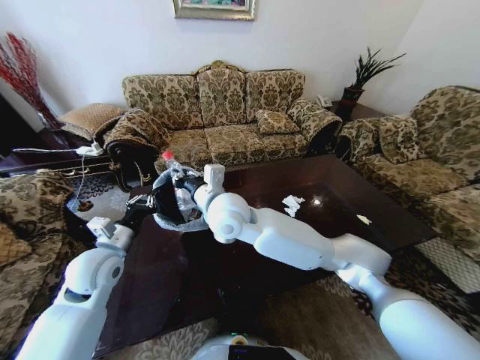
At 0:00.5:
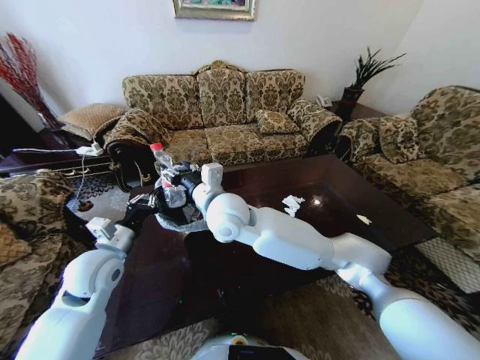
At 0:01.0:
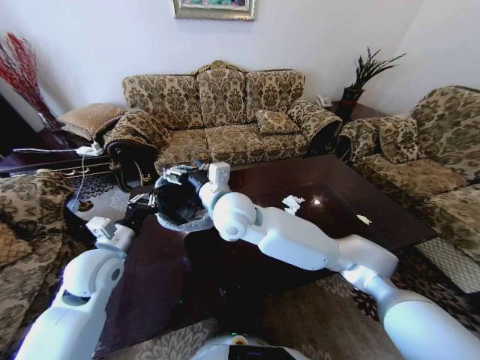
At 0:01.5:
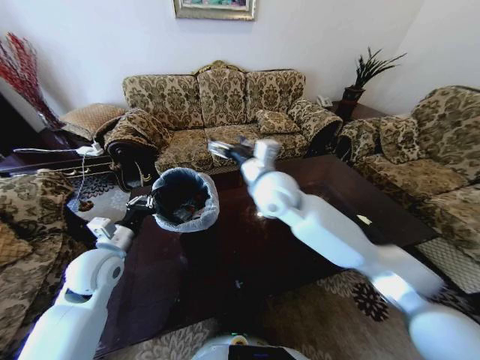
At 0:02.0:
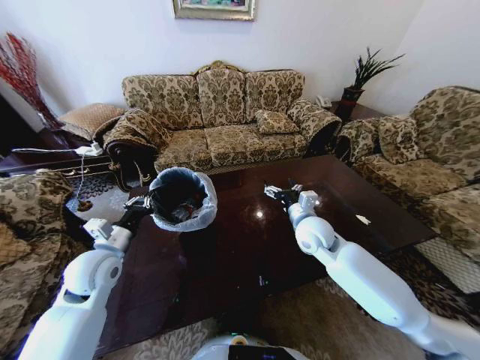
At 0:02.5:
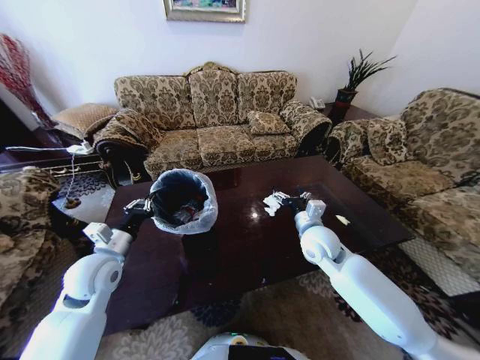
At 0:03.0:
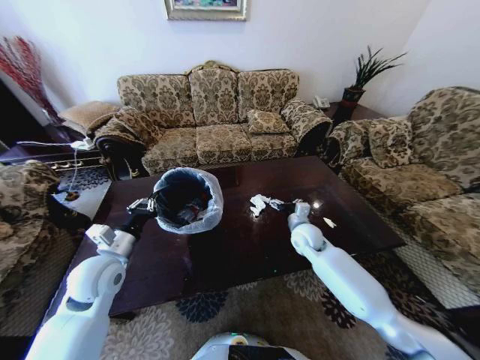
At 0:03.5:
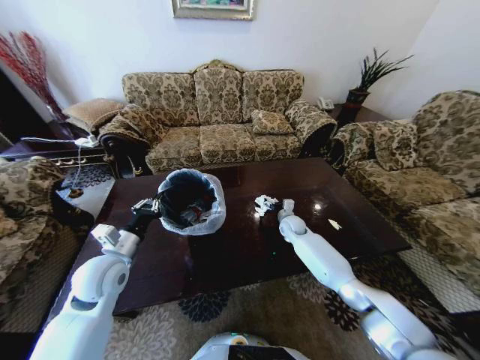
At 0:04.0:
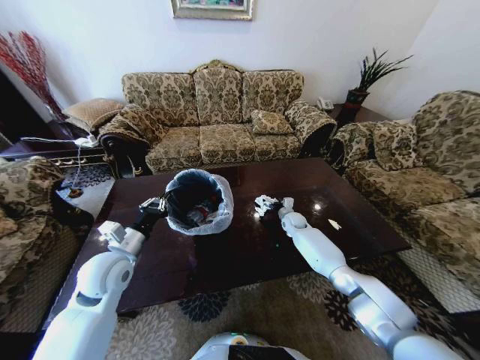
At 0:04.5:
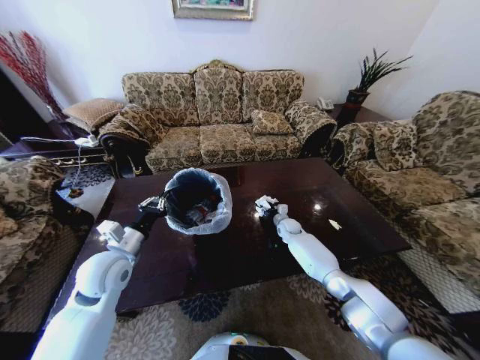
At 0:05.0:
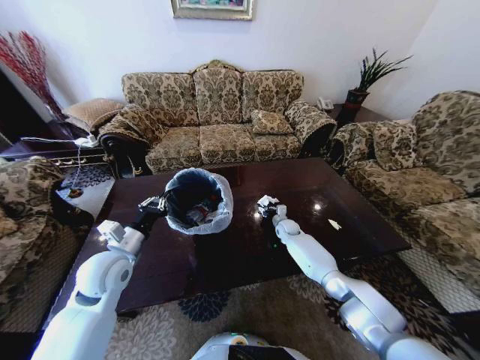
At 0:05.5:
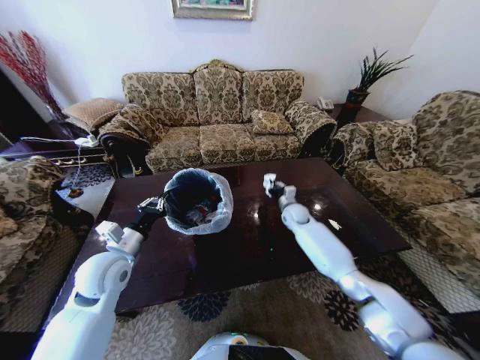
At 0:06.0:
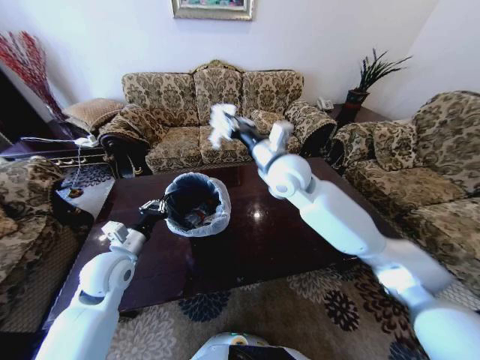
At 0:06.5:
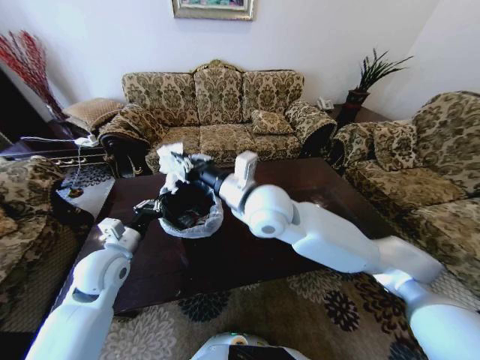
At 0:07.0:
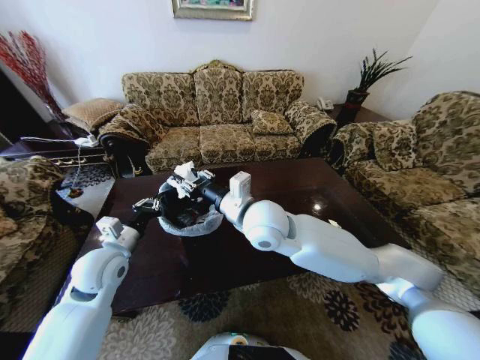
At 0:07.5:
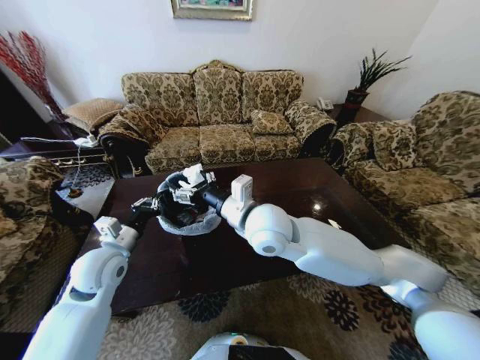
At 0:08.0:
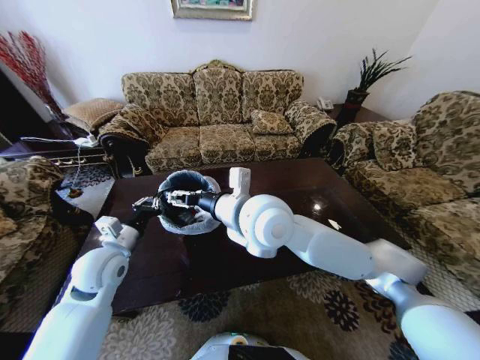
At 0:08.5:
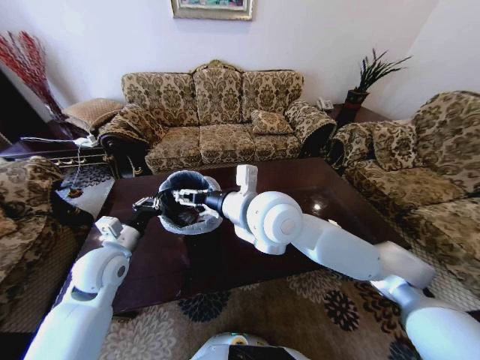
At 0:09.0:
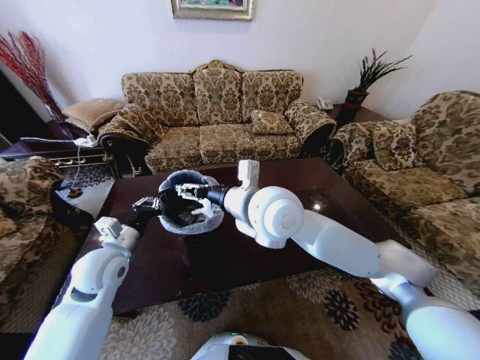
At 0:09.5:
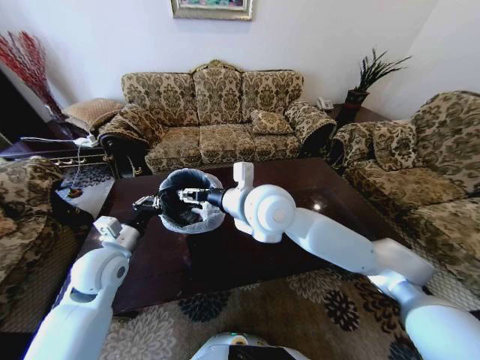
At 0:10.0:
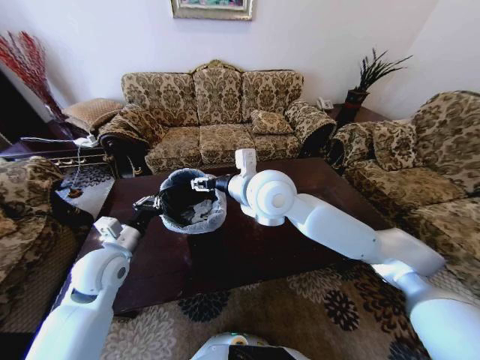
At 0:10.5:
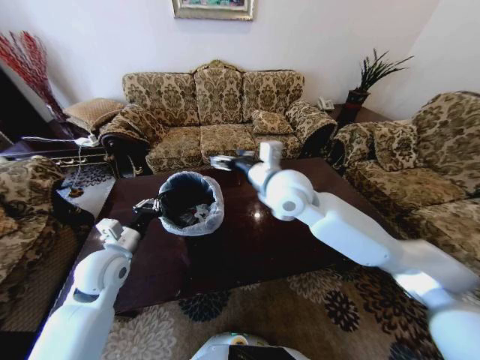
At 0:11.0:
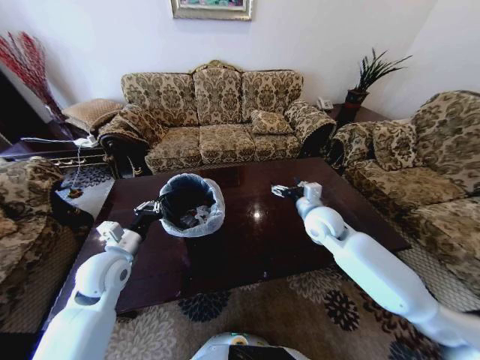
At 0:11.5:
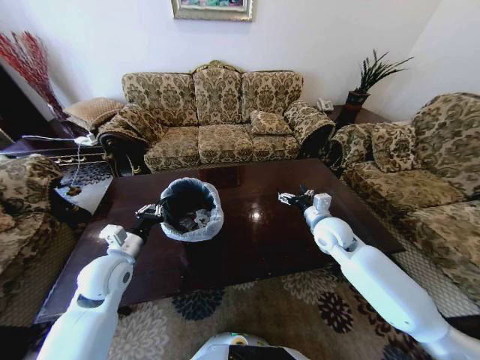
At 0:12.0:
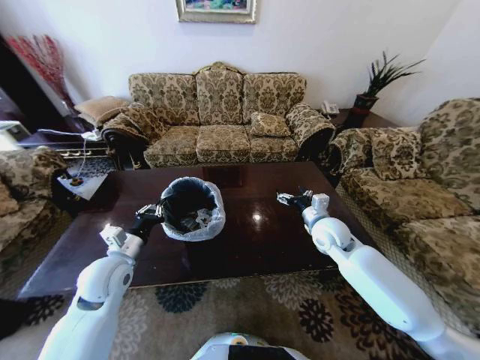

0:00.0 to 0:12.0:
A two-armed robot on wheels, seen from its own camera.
Task of the whole recording: Move to the front of the table and place the trash on the table into the trash bin.
0:00.0 to 0:02.0: The right gripper heads to the right and downward, covering roughly 25 cm, and opens up.
0:02.0 to 0:04.0: The right gripper goes about 25 cm downward and forward.
0:04.0 to 0:06.0: The right gripper goes about 40 cm upward and backward, and closes up.
0:06.0 to 0:08.0: The right gripper heads backward and to the left, covering some 15 cm, and opens its fingers.
0:08.0 to 0:10.0: The right gripper shifts some 5 cm forward.
0:10.0 to 0:12.0: The right gripper shifts about 30 cm to the right and downward.

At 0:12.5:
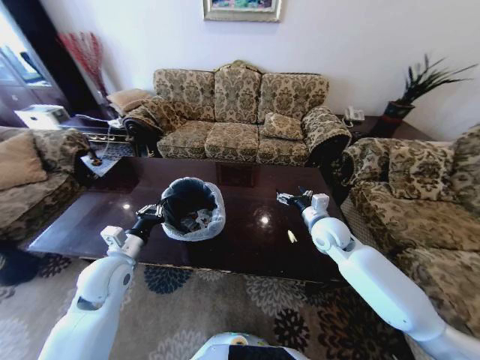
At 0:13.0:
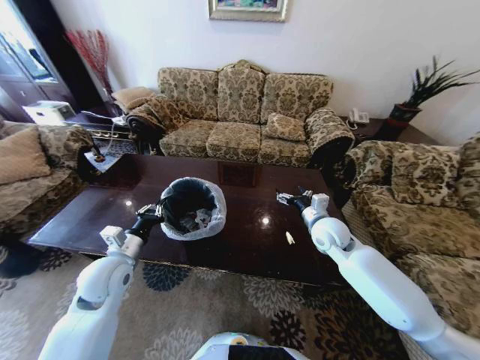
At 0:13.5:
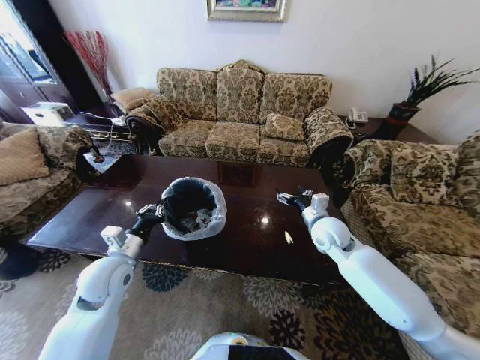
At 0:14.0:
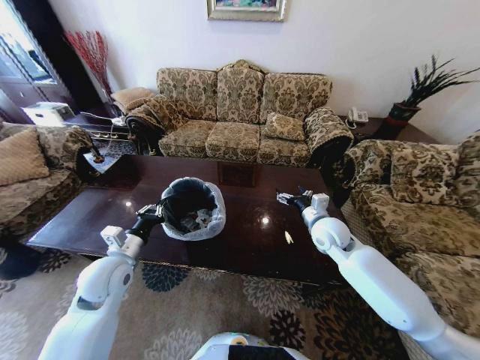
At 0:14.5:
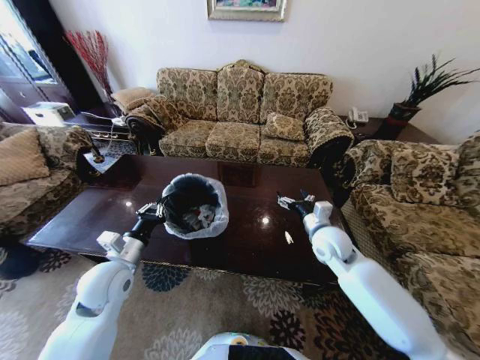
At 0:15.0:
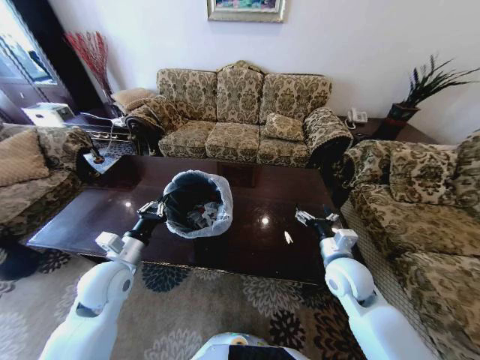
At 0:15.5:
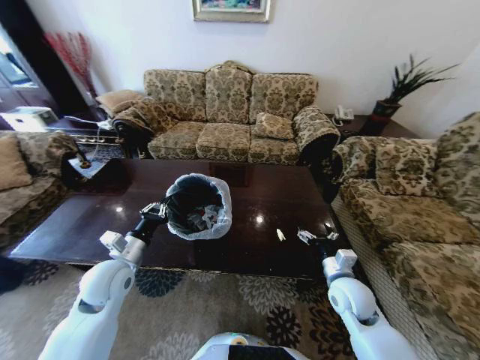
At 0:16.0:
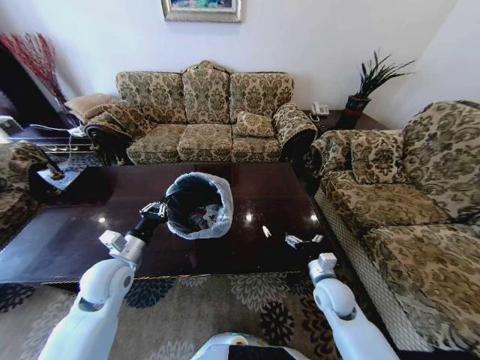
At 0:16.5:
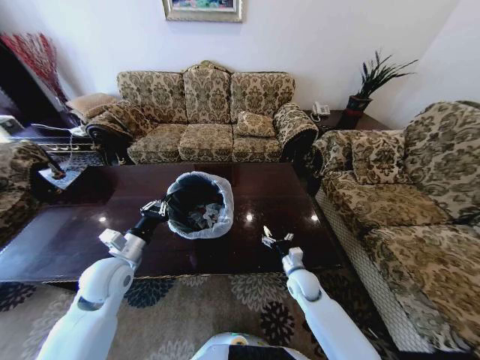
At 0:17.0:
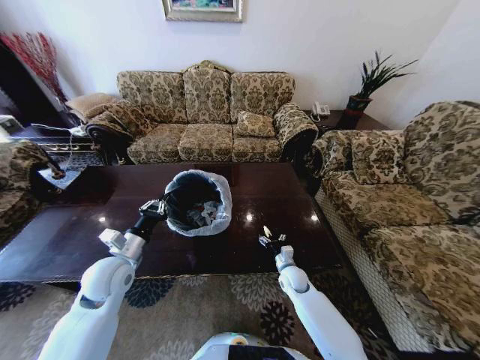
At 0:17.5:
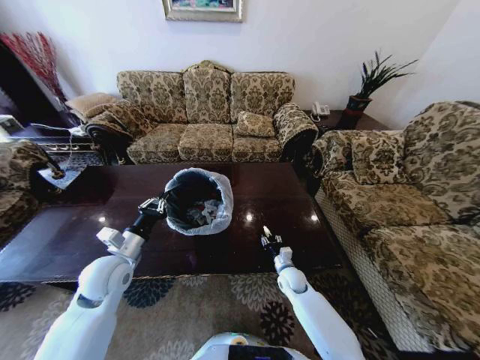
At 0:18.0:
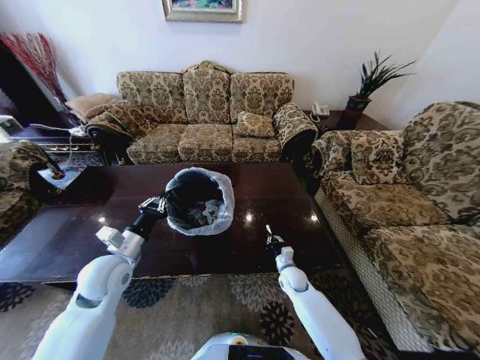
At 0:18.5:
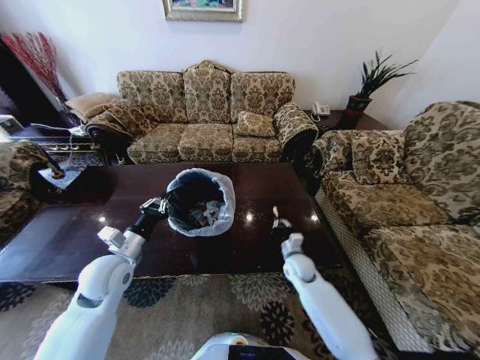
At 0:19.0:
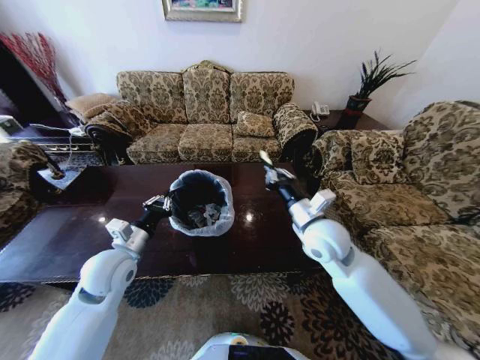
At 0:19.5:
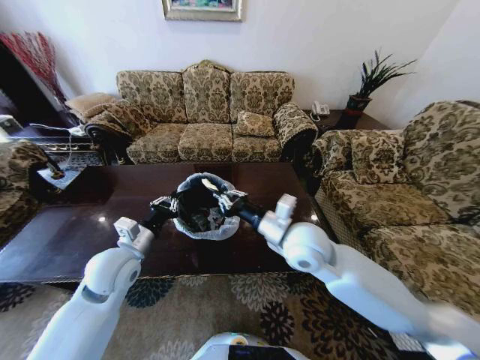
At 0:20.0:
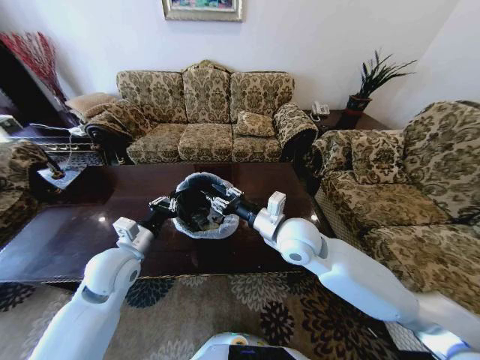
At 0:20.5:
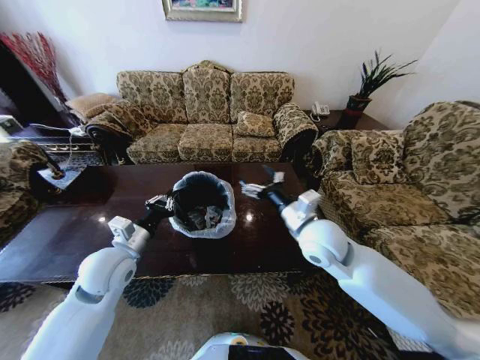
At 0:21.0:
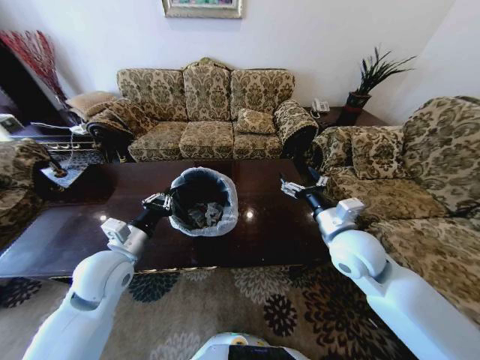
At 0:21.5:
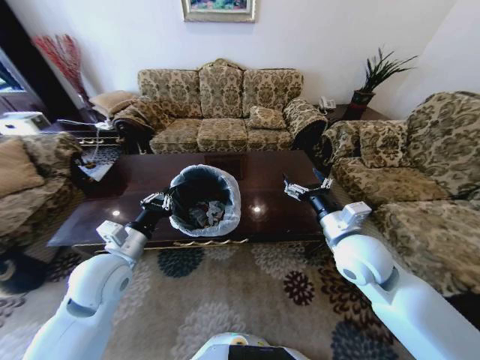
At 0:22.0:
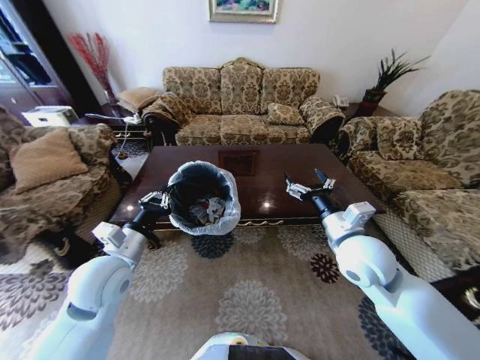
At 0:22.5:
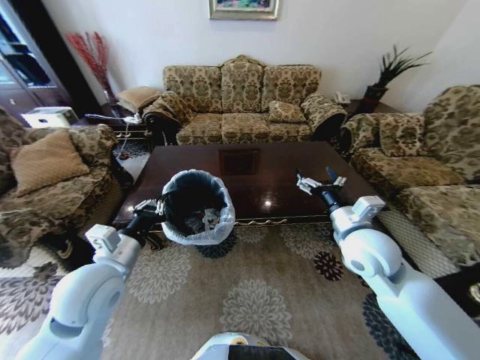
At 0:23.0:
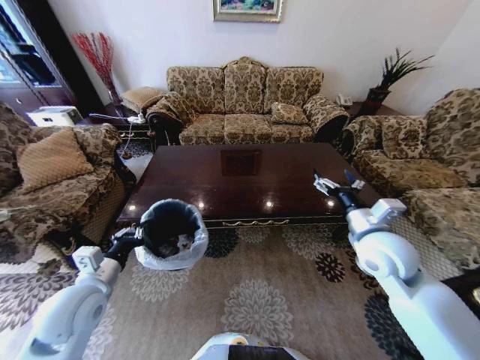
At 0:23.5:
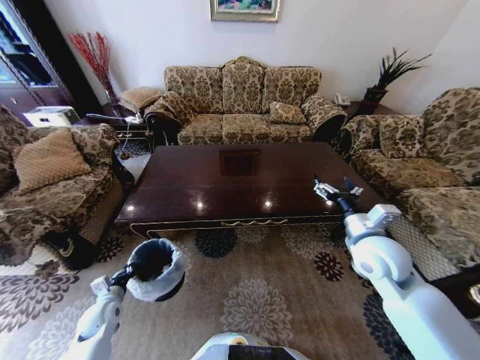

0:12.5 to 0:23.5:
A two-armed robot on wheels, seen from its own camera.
Task of the whole recording: Move to the front of the table and place the trash on the table into the trash bin.
0:14.5 to 0:16.0: The right gripper shifts roughly 15 cm downward and backward.
0:16.0 to 0:18.0: The right gripper travels downward, forward and to the left by some 15 cm, and closes its fingers.
0:18.0 to 0:20.0: The right gripper is displaced upward by some 35 cm, and opens its fingers.
0:20.0 to 0:21.5: The right gripper travels to the right by roughly 10 cm, and opens its fingers.
0:21.5 to 0:23.5: The right gripper is displaced to the right by some 5 cm. Meanwhile the left gripper travels downward and to the left by roughly 30 cm.

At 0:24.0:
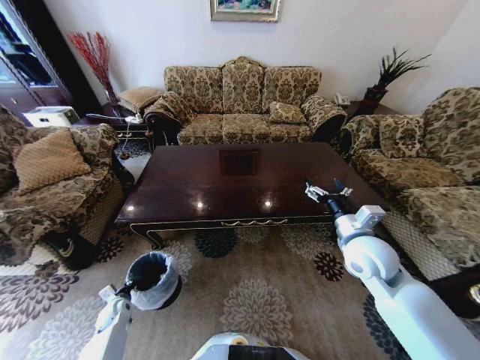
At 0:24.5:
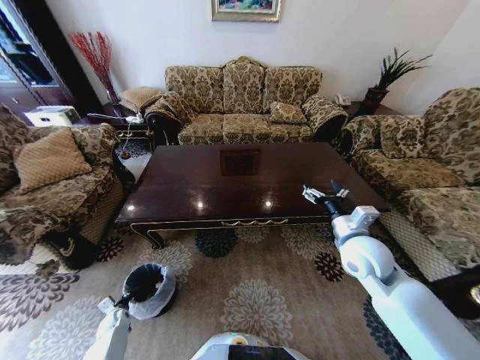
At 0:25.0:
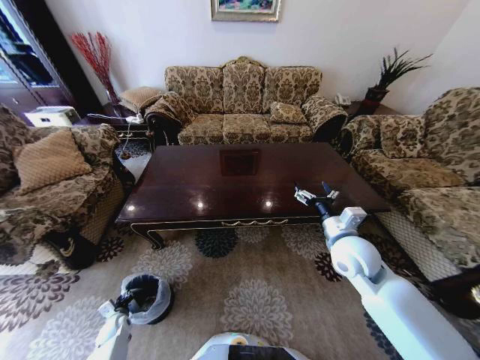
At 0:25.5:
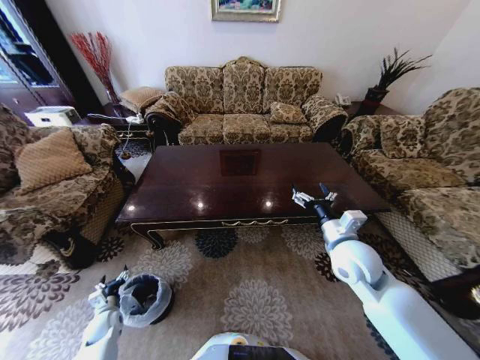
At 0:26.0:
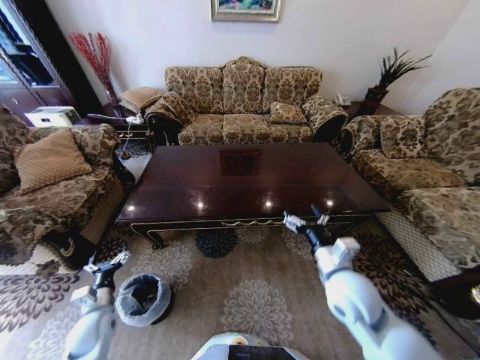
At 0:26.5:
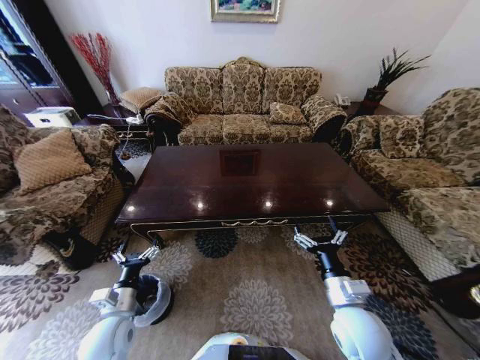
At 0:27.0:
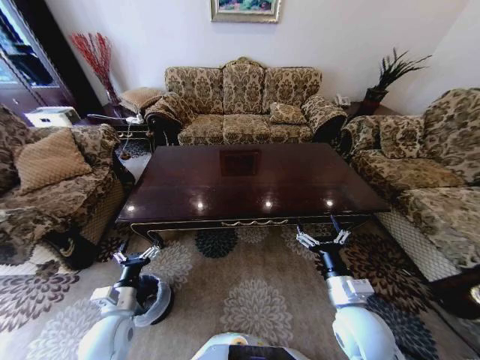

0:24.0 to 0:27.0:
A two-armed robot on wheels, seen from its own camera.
Task of the whole recording: Move to the front of the table and place the trash on the table into the trash bin.
0:24.0 to 0:25.5: The left gripper opens.
0:25.5 to 0:27.0: The right gripper goes approximately 15 cm backward and downward. Meanwhile the left gripper is displaced upward and to the right by about 25 cm.
